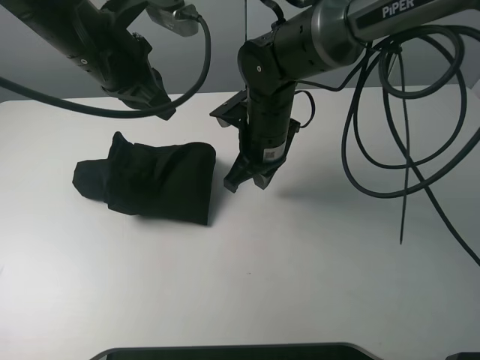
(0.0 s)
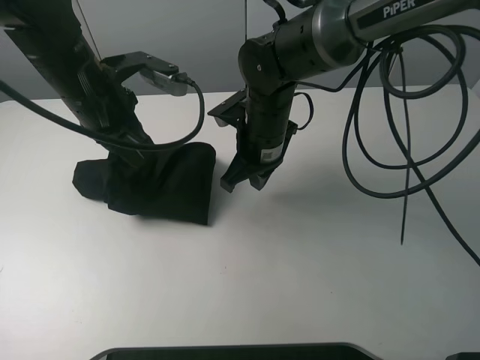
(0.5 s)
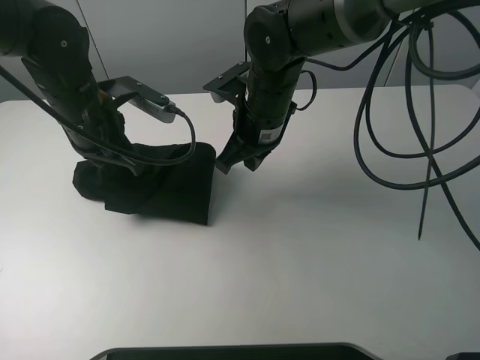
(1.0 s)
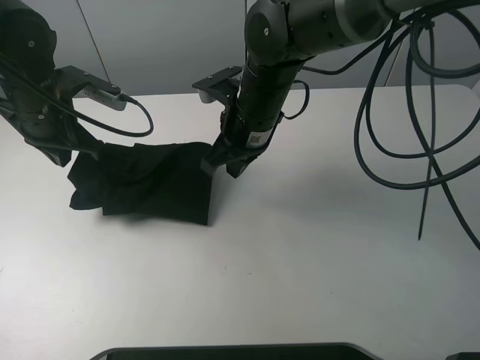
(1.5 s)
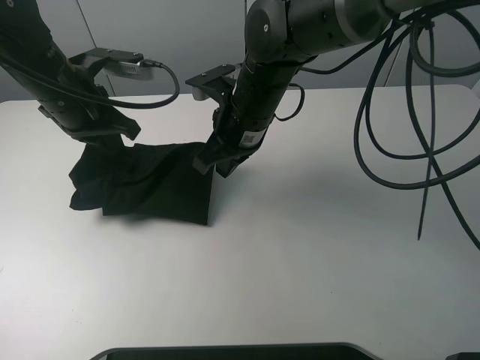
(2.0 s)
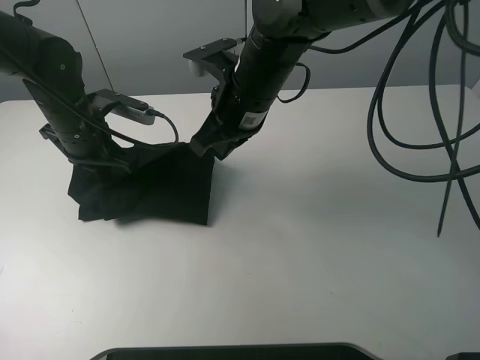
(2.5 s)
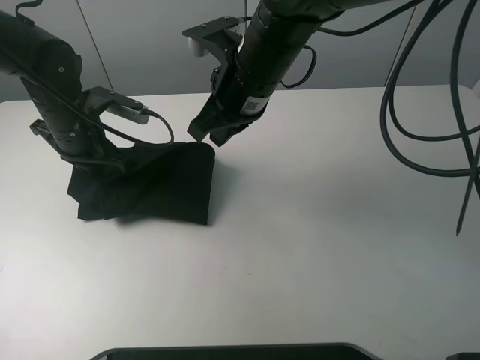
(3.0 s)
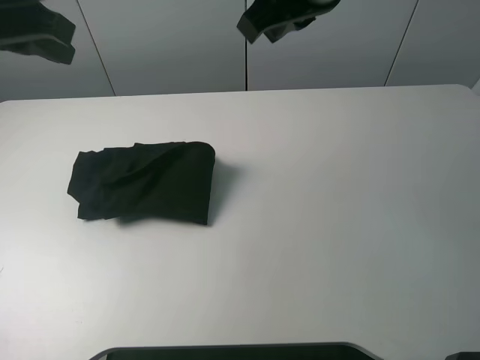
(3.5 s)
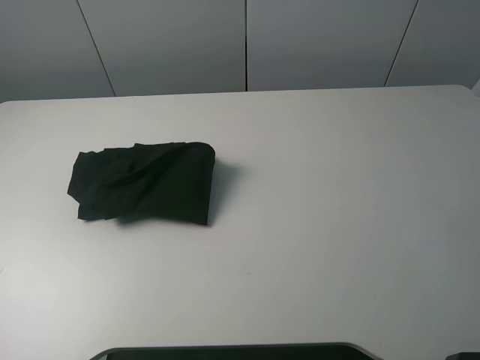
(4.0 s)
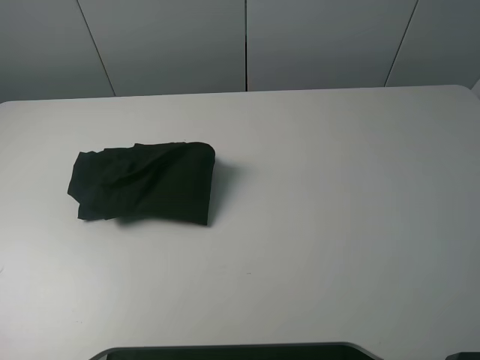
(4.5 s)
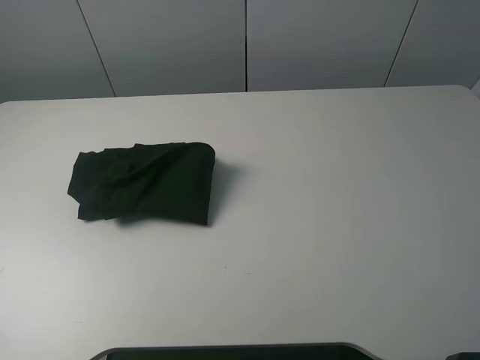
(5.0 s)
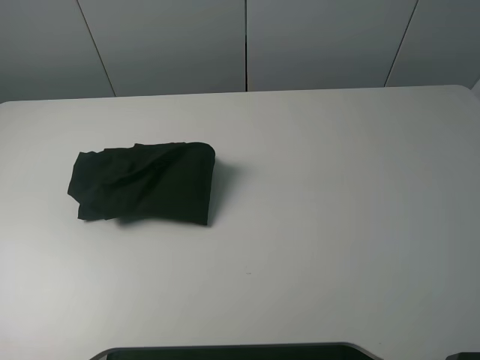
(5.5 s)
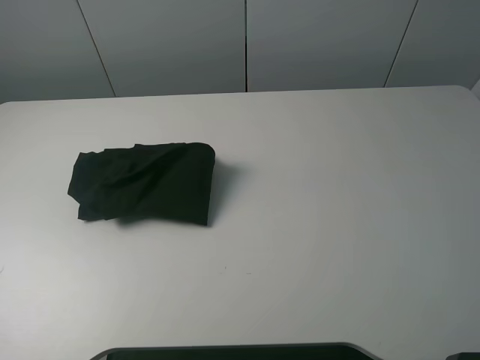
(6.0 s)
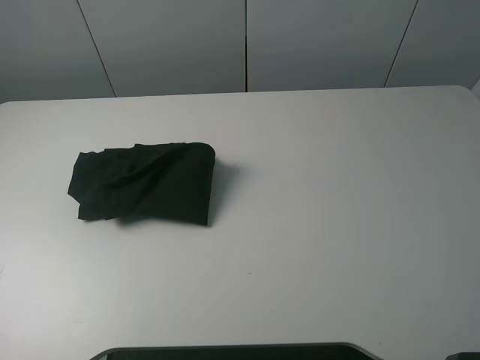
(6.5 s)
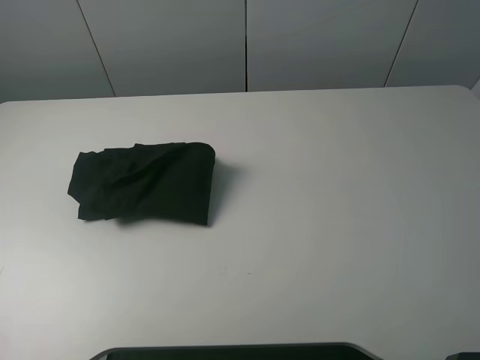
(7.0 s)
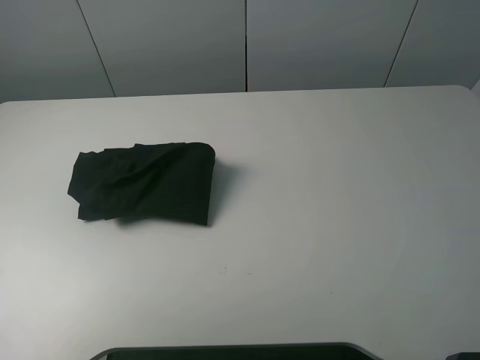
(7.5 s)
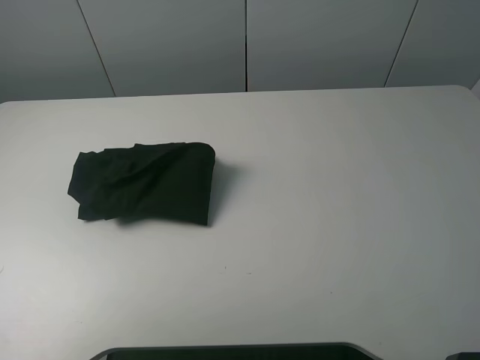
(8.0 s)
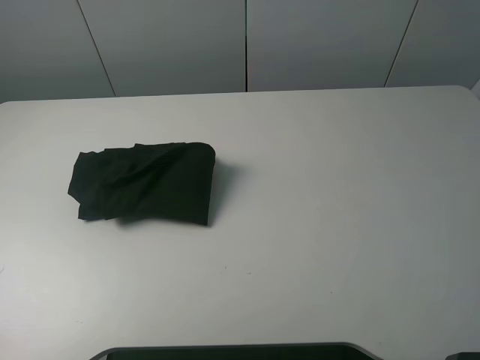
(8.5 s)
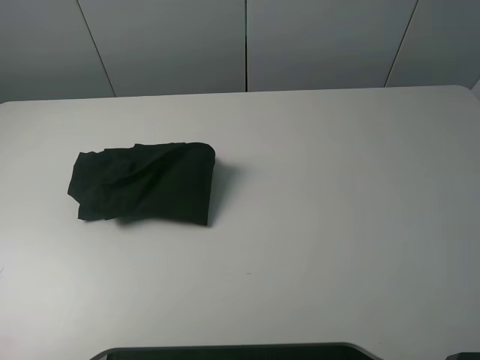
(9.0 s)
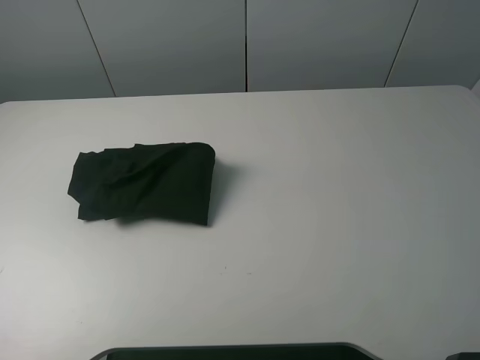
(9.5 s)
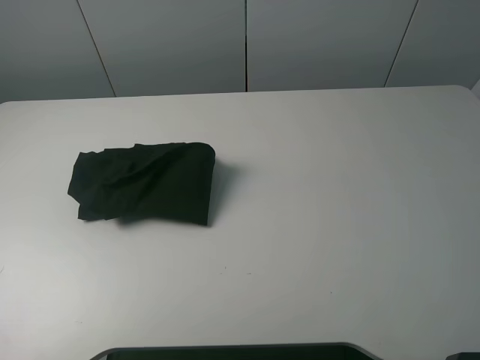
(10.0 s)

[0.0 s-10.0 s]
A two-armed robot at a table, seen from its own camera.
Task of the whole recording: fold the clothes on the table.
0.0 to 2.0 s: The left gripper travels to the left and downward by roughly 10 cm.
2.0 to 4.0 s: The left gripper travels upward and backward by approximately 30 cm, and opens its fingers, while the right gripper moves upward, to the right and backward, about 40 cm, and opens.
